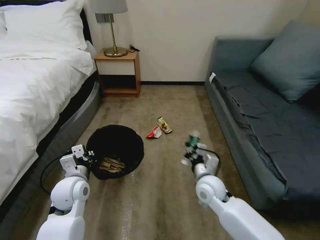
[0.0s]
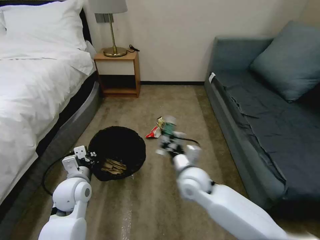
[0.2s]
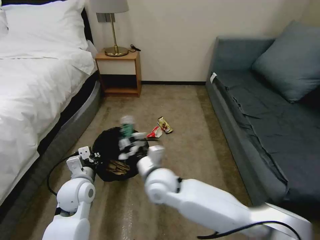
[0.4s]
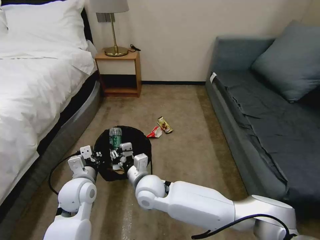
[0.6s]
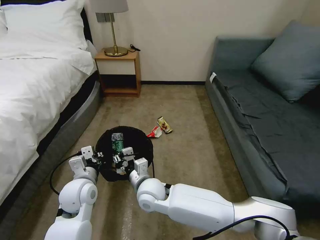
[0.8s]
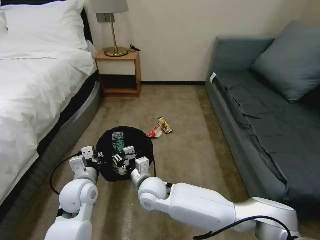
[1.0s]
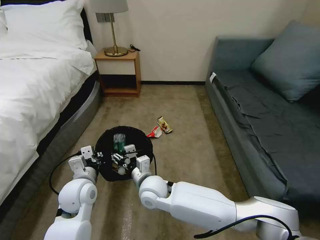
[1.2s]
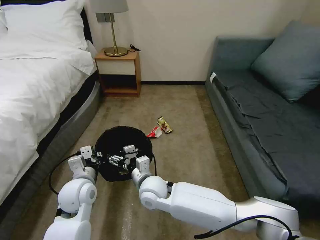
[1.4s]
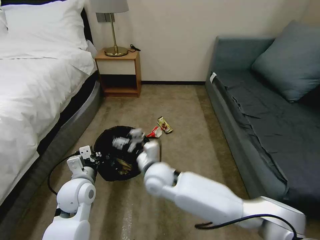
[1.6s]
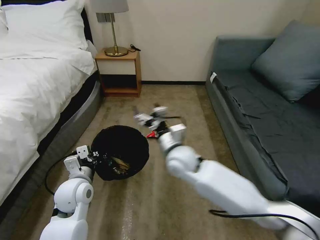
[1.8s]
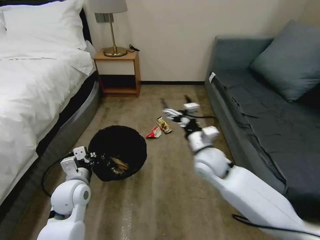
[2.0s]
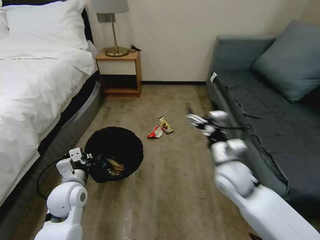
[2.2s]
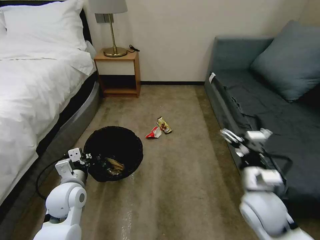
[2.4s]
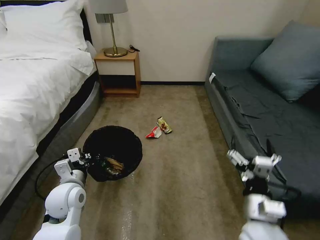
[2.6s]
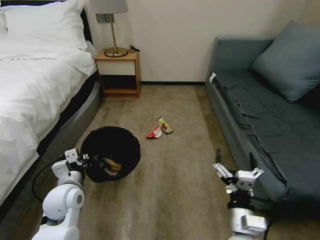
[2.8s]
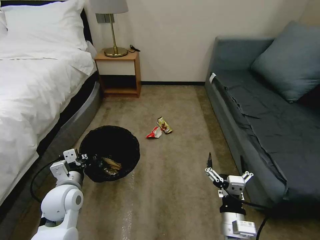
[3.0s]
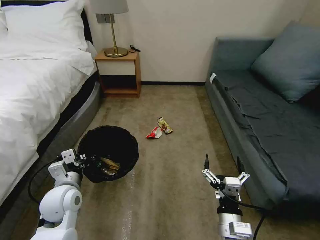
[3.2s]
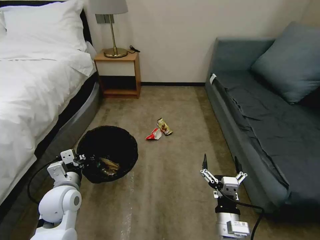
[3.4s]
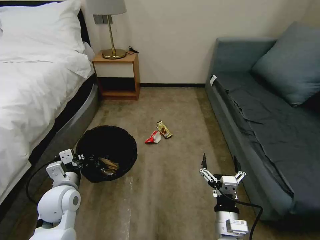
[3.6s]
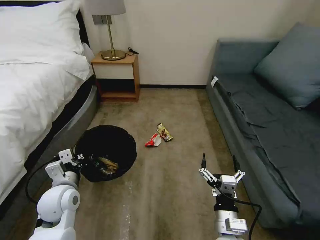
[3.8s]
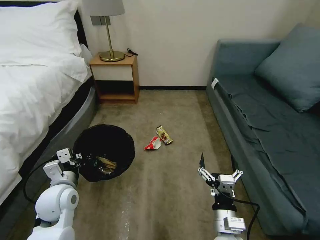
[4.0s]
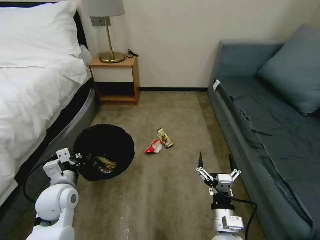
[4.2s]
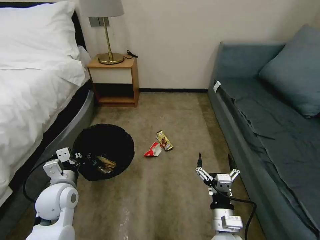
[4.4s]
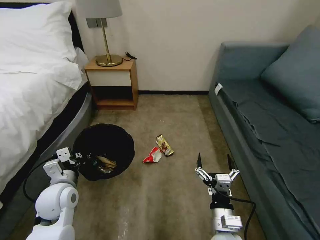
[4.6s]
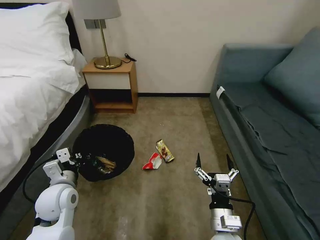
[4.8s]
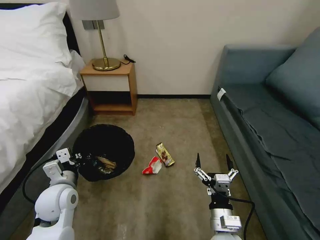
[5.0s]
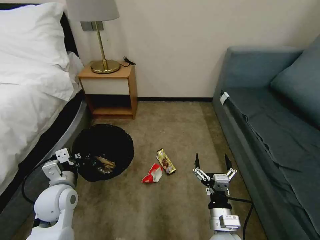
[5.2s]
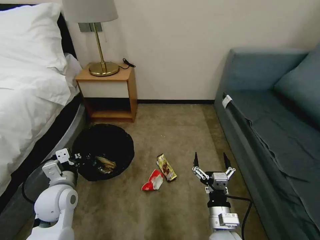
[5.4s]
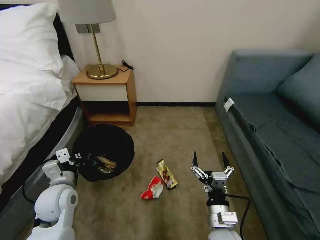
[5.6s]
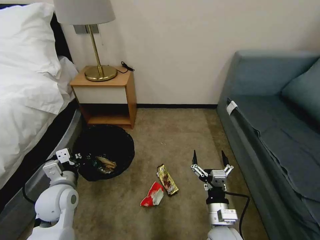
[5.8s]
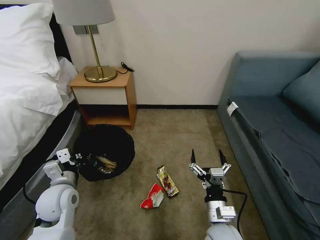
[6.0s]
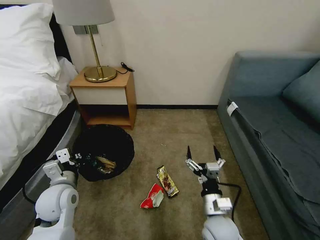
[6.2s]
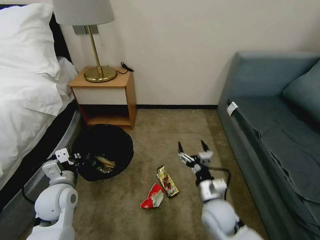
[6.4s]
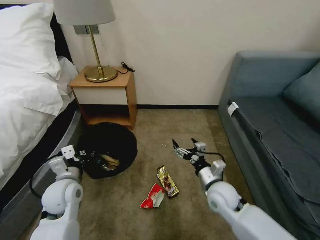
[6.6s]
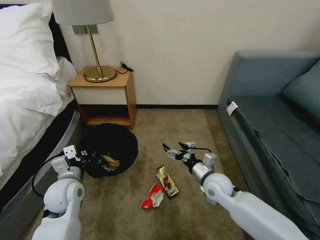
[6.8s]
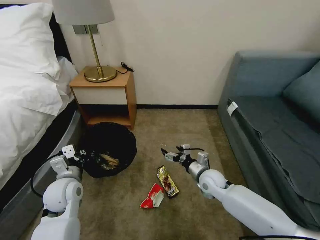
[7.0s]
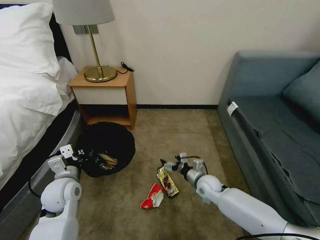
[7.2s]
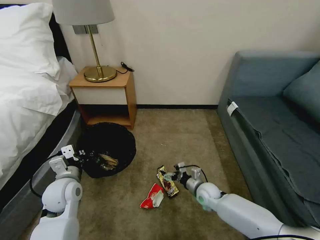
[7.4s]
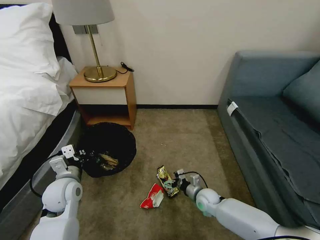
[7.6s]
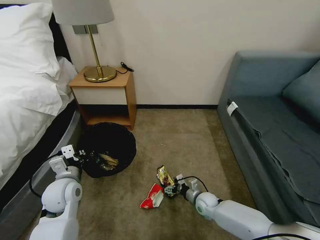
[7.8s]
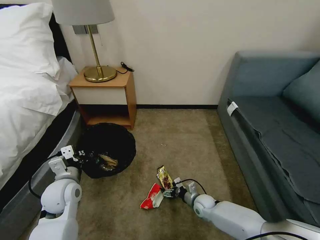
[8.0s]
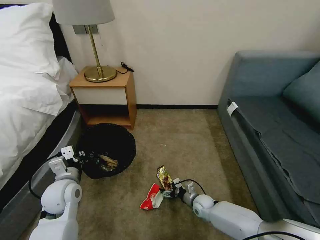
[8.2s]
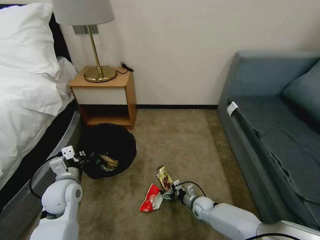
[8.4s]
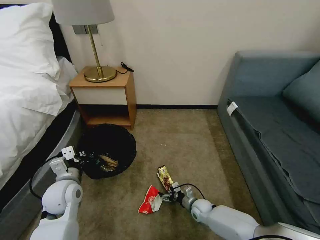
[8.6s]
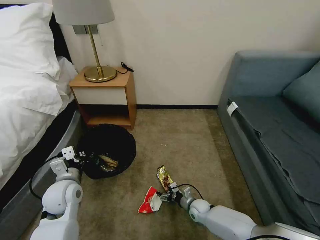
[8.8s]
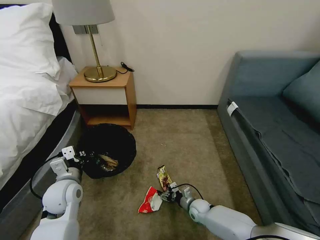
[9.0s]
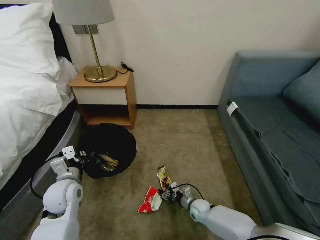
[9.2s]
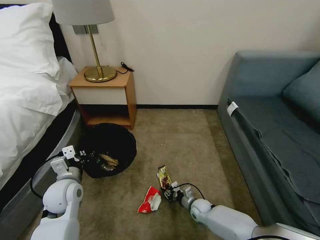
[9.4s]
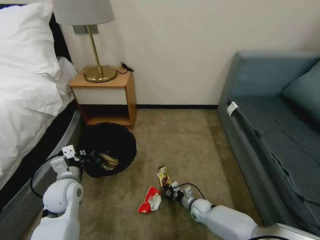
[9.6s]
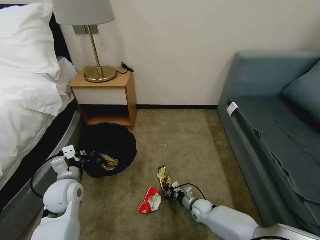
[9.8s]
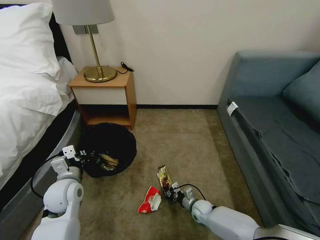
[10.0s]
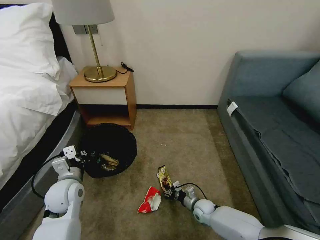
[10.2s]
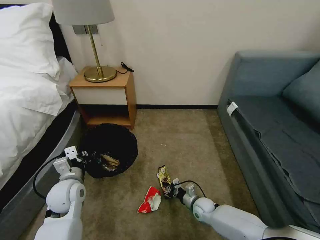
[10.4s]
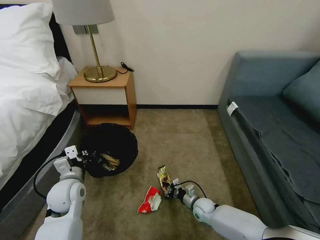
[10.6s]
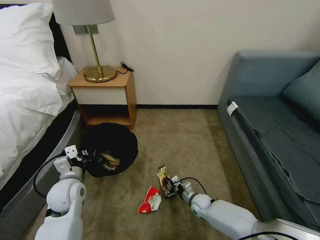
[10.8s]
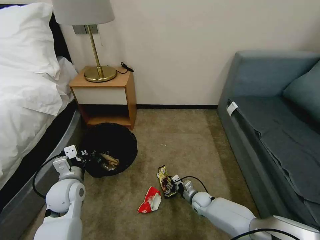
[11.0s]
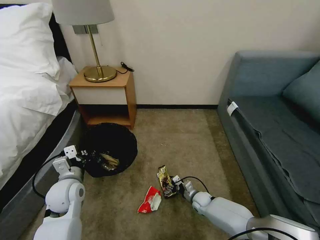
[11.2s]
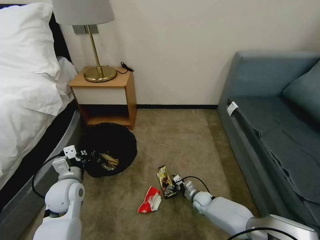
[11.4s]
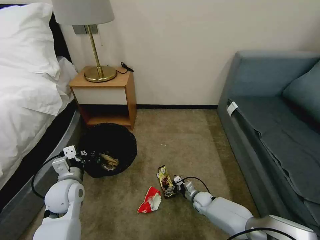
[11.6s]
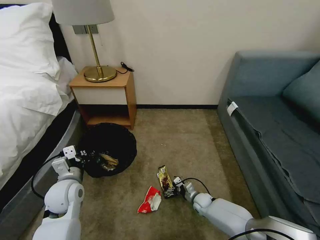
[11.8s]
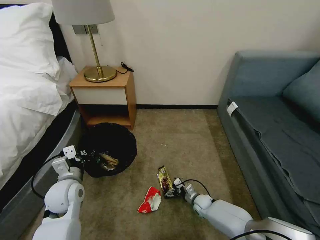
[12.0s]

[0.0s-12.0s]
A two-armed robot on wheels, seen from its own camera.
Task of the whole recording: Pick up the trash bin, then pick up the garbage on the floor and place it into the trash bin.
0.0s to 1.6s: The right gripper heads to the left, covering roughly 20 cm, and opens its fingers.
1.6s to 3.0s: The right gripper is displaced to the right and backward by approximately 30 cm.
6.0s to 7.6s: The right gripper heads forward and downward, covering about 20 cm.
7.6s to 9.0s: The right gripper moves downward, roughly 10 cm.
9.0s to 10.4s: The right gripper closes.
10.4s to 12.0s: The right gripper changes place by roughly 5 cm, and opens its fingers.

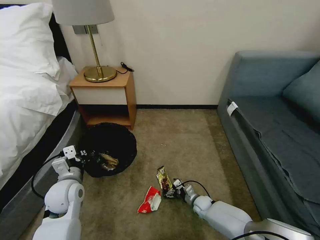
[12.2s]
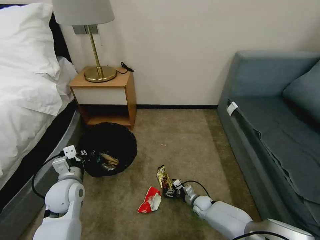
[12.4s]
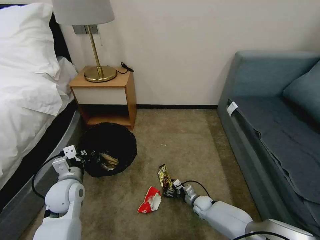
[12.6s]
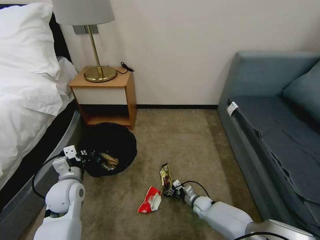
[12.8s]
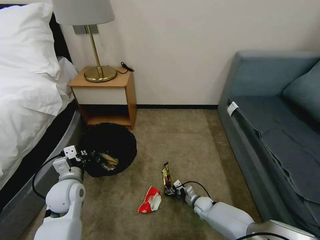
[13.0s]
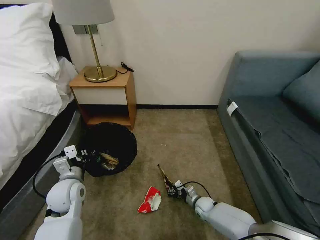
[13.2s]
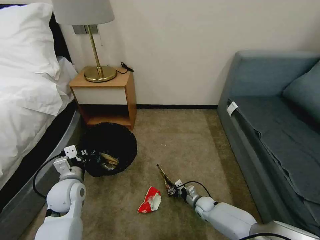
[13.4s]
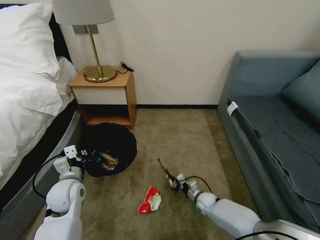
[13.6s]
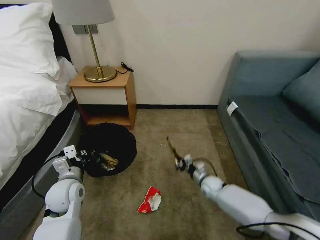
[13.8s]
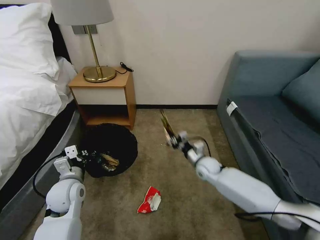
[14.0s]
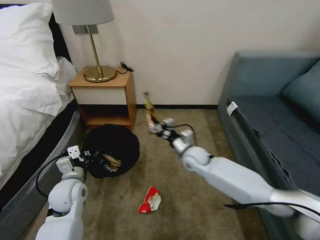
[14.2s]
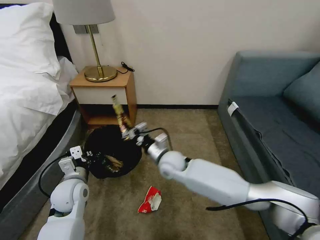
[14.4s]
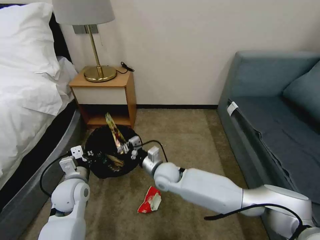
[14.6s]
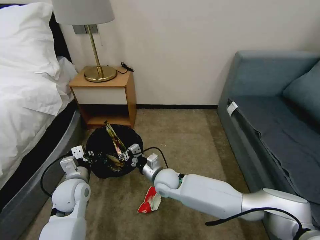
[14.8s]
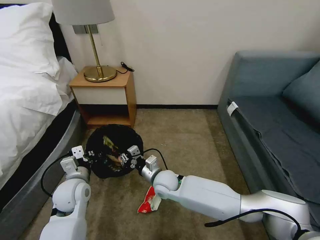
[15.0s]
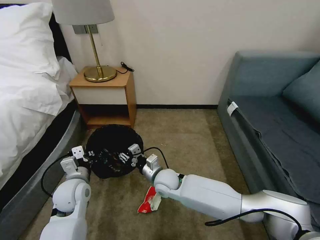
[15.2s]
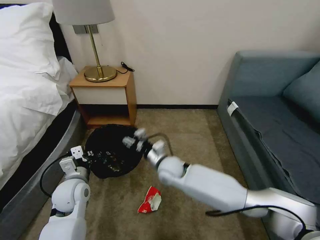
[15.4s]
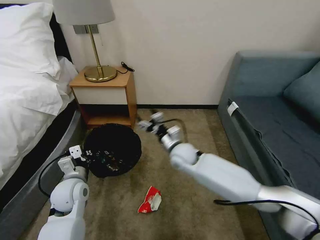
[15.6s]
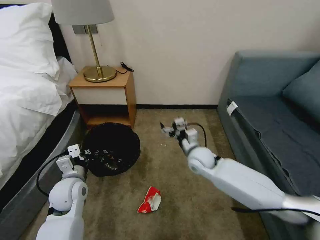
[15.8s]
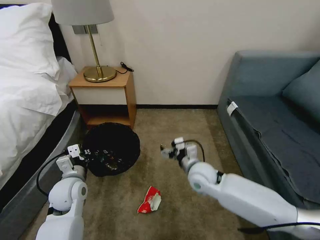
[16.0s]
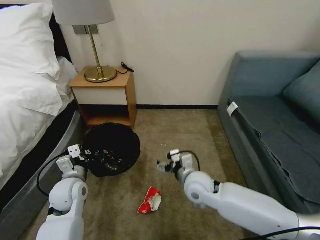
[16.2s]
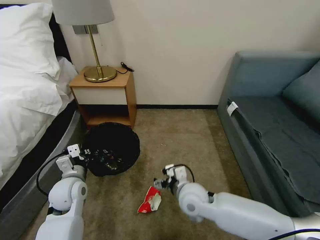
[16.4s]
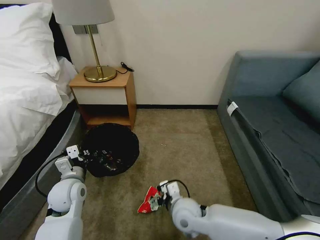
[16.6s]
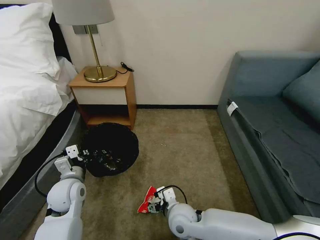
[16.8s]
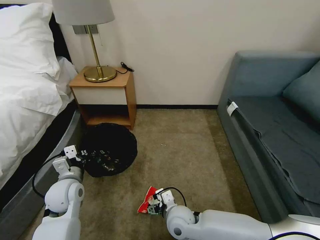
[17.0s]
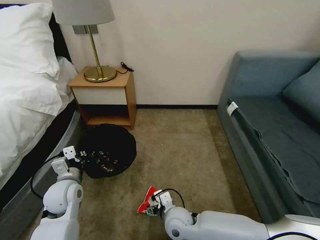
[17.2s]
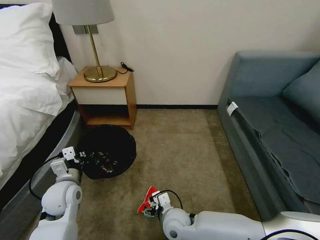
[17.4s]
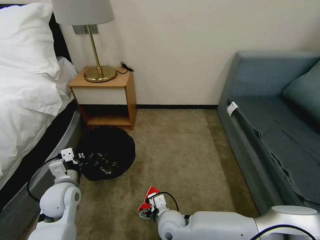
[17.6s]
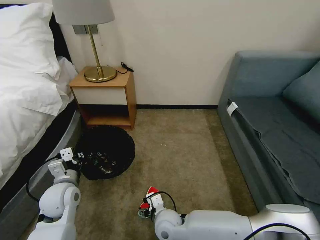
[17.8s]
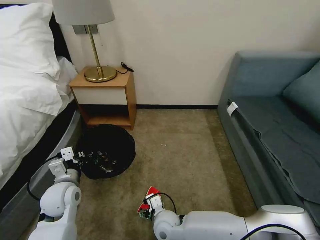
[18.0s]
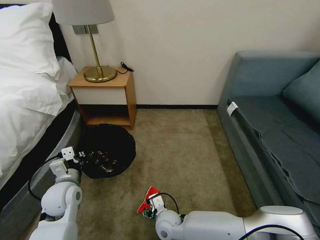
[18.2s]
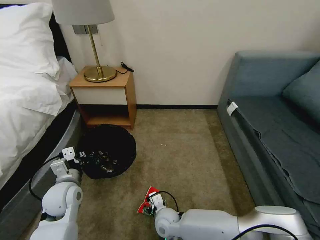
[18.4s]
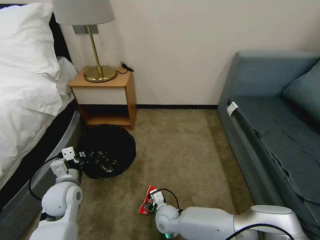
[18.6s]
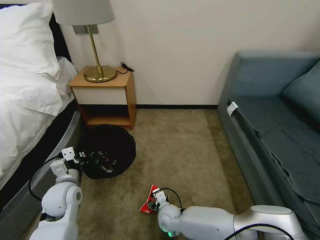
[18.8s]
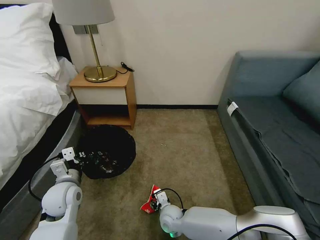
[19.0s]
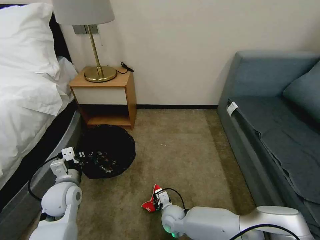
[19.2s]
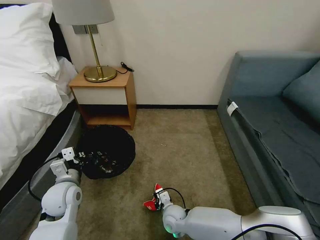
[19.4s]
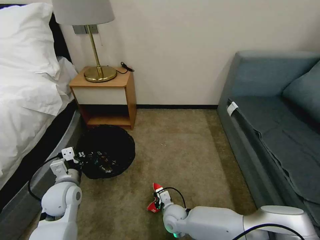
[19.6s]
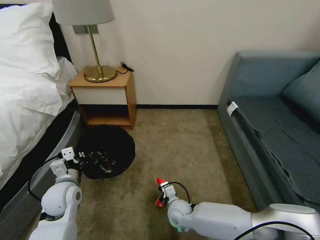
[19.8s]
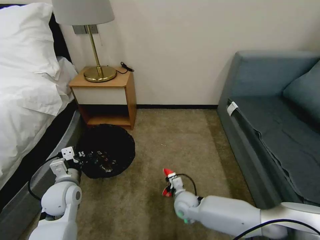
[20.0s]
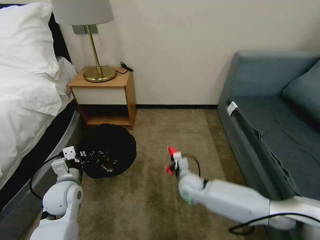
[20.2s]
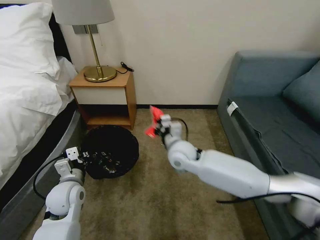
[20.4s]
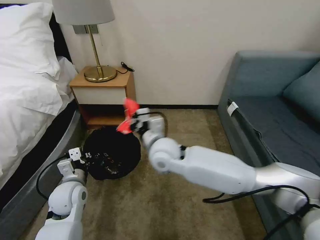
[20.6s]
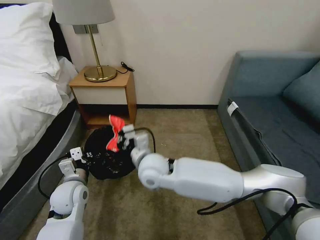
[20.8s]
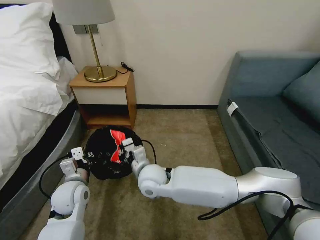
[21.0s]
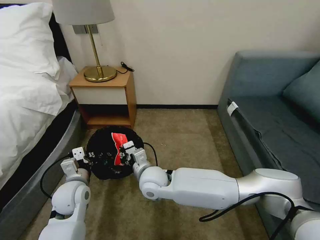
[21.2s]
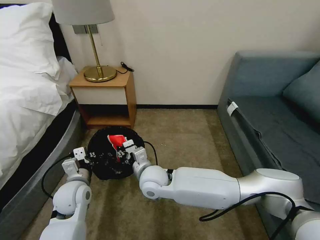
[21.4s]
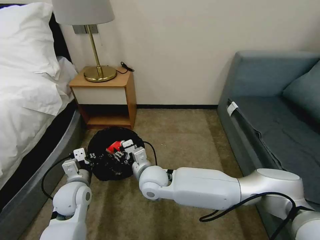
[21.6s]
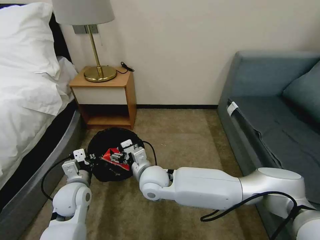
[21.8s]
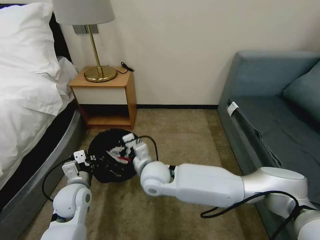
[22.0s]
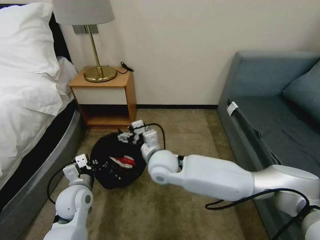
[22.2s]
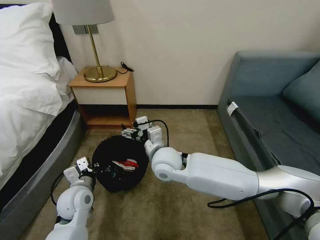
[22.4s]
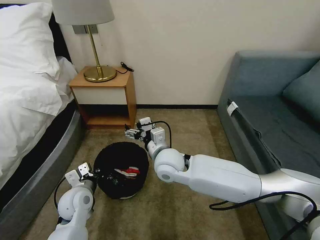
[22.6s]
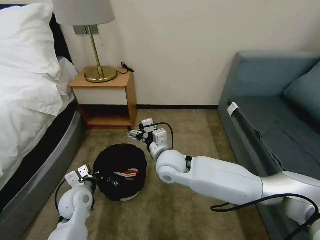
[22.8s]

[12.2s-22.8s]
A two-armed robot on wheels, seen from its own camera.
Task of the whole recording: Pick up the trash bin, then pick up the garbage on the floor and place it into the trash bin.
12.2s to 13.8s: The right gripper changes place by about 5 cm, and closes its fingers.
13.8s to 15.2s: The right gripper heads to the left and upward, covering about 30 cm, and opens.
15.2s to 16.8s: The right gripper goes some 10 cm backward, and opens.
16.8s to 18.2s: The right gripper heads downward, covering approximately 5 cm.
18.2s to 19.8s: The right gripper moves approximately 5 cm, and closes up.
19.8s to 21.2s: The right gripper is displaced upward and to the left by approximately 20 cm.
21.2s to 22.8s: The right gripper travels upward and to the right by approximately 10 cm, and opens its fingers.
